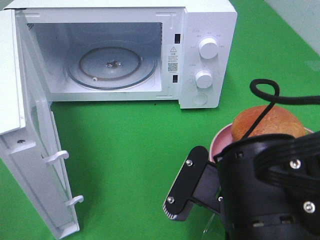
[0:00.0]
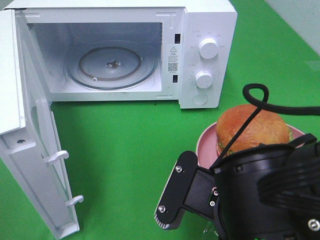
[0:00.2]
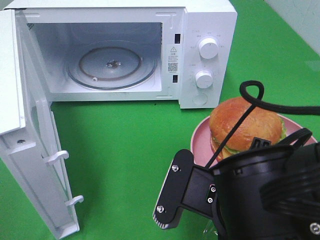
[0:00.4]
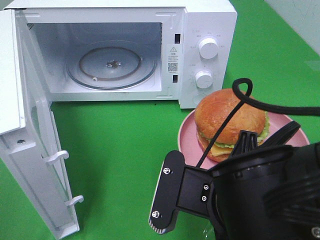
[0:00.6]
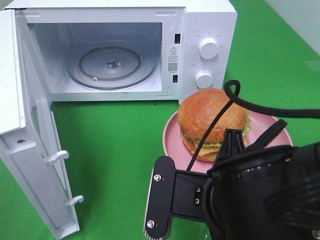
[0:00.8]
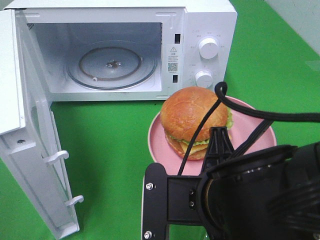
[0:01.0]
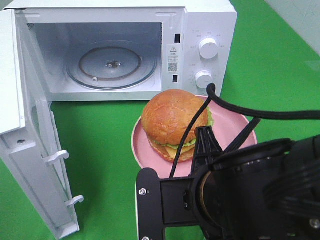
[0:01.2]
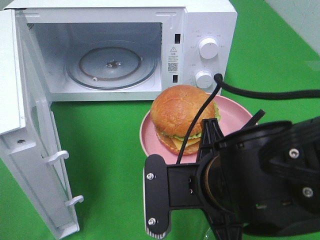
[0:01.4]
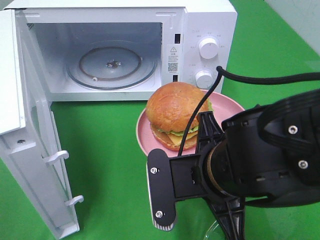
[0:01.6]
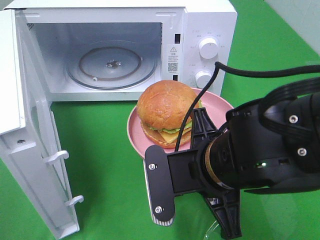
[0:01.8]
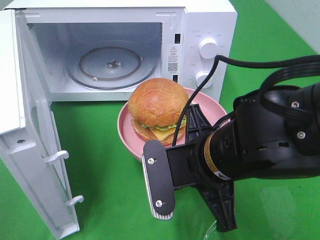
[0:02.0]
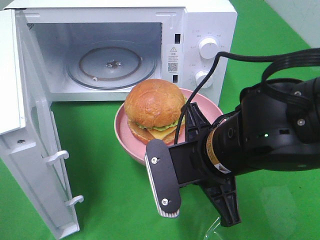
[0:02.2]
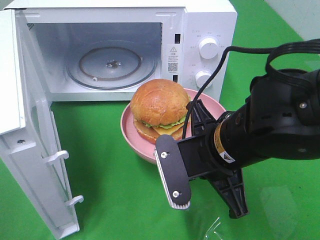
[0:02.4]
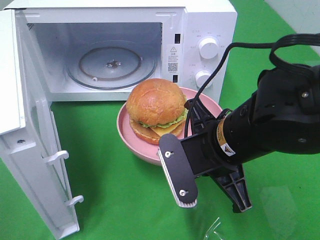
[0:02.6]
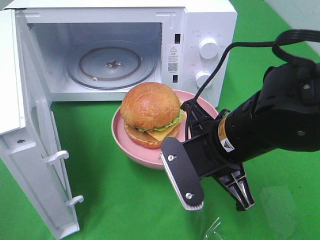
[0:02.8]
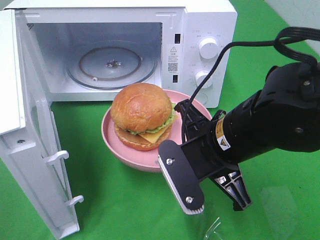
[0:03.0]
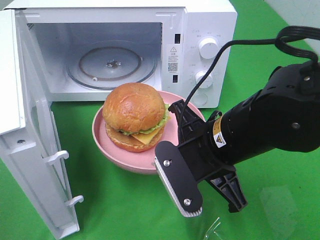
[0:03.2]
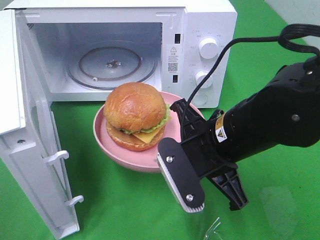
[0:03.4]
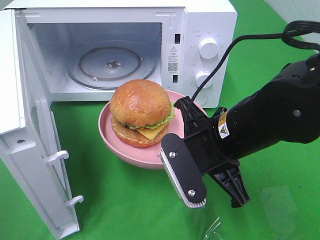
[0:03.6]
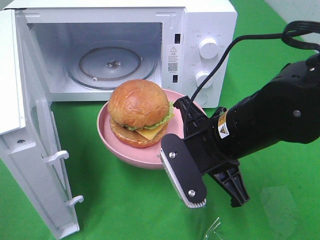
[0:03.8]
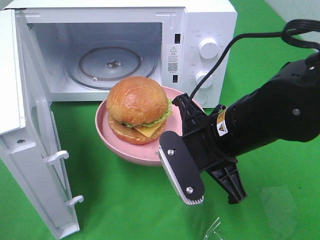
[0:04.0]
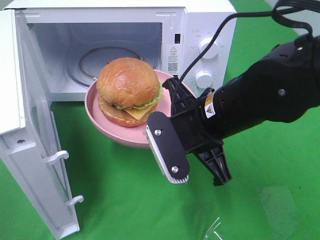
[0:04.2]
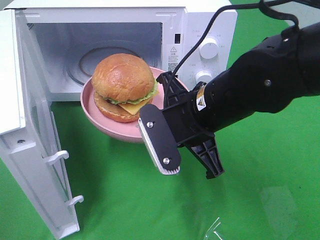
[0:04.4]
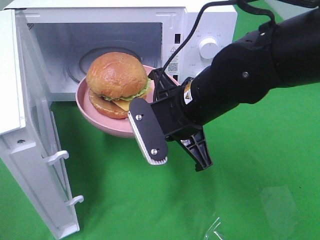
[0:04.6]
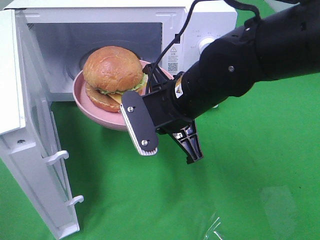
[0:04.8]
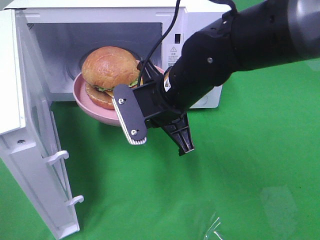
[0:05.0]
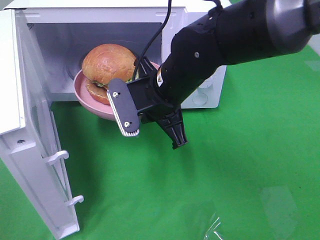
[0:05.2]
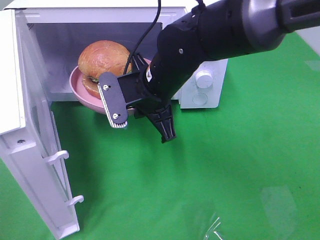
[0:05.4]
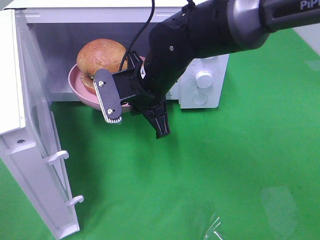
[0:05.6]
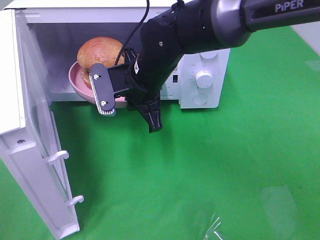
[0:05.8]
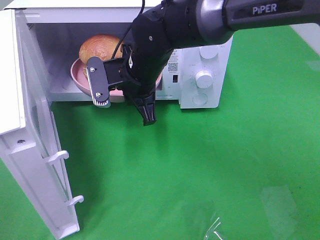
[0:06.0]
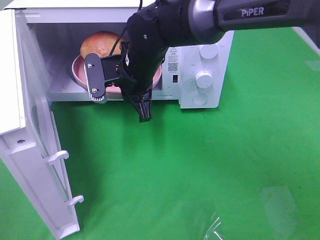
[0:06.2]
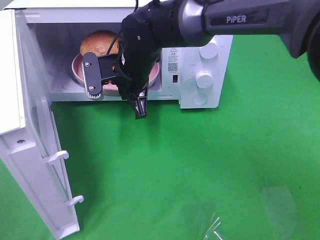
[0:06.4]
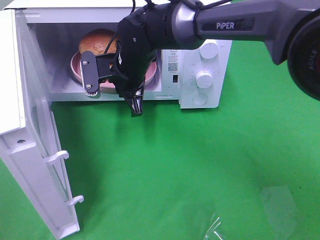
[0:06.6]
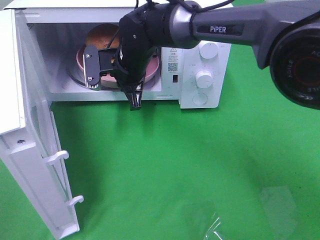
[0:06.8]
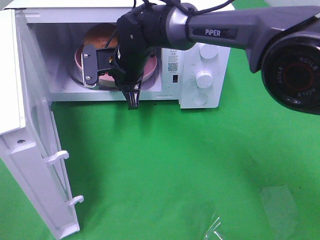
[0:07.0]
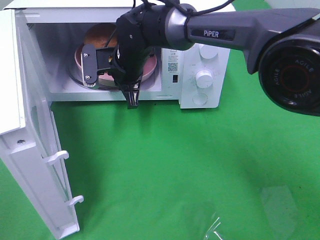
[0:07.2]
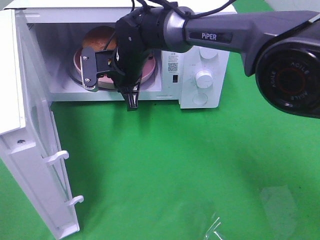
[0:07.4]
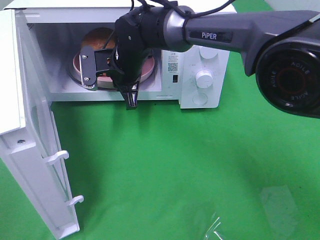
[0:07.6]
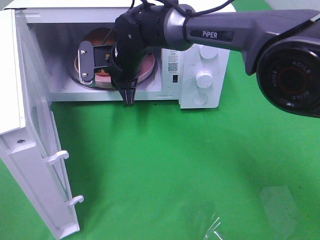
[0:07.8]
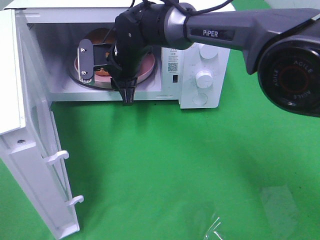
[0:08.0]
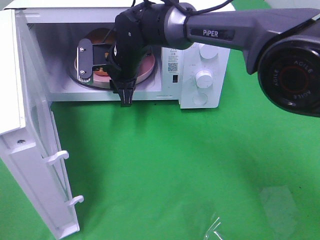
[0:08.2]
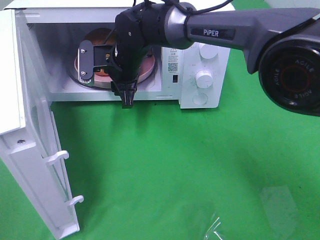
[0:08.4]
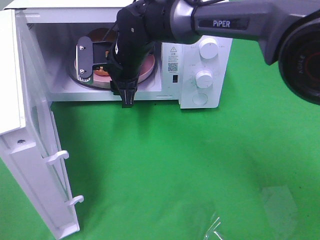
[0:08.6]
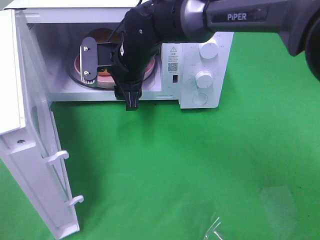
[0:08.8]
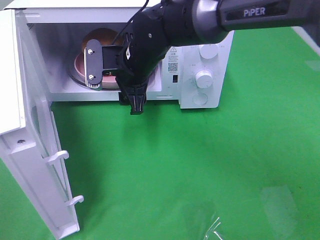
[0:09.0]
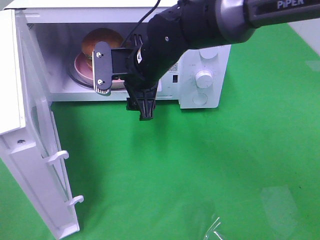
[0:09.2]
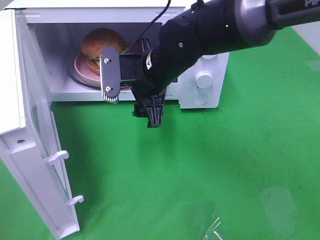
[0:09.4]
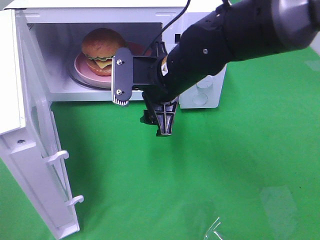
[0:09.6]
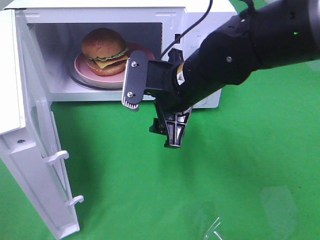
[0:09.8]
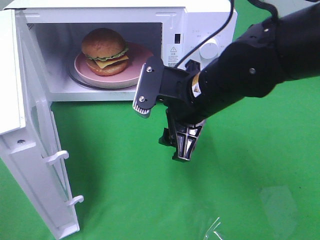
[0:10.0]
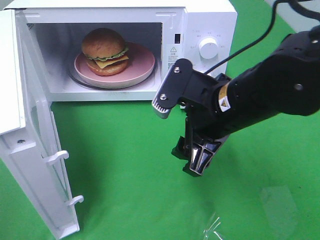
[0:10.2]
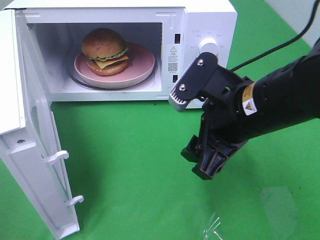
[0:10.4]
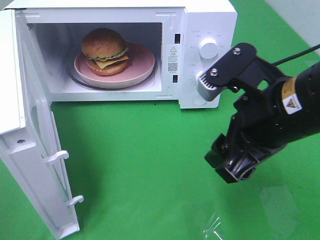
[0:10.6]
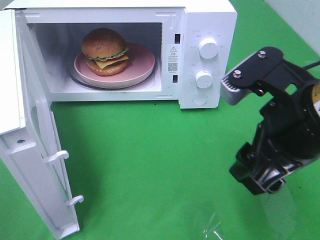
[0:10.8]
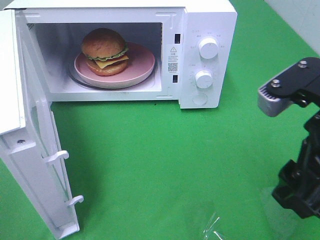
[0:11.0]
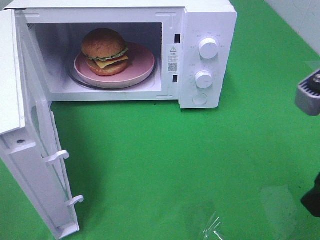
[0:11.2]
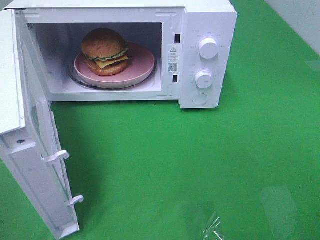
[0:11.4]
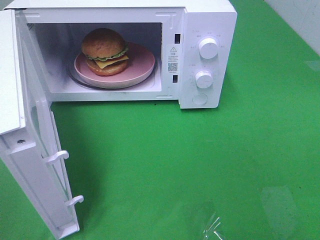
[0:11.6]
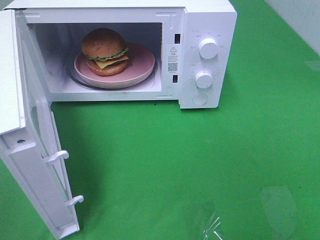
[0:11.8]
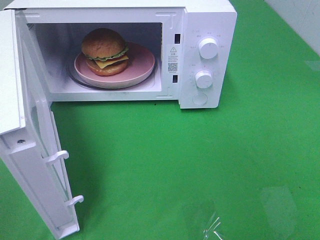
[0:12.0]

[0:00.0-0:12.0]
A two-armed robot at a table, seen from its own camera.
Task of the whole recording: Heat the burger.
Step, 0:00.0 to 0:08.8: Right hand: place the plate in the microwave.
0:04.4 to 0:06.0: The right gripper moves forward and to the left, approximately 15 cm.
0:06.0 to 0:07.6: The right gripper heads forward, covering about 5 cm.
0:07.6 to 0:09.0: The right gripper changes place by roughly 5 cm, and opens its fingers.
0:09.0 to 0:10.4: The right gripper travels backward and to the right by about 20 cm.
0:10.4 to 0:12.0: The right gripper travels to the right, backward and upward by approximately 25 cm.

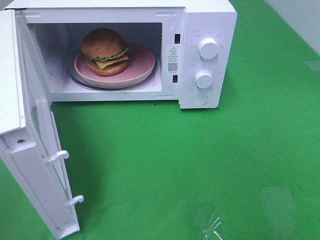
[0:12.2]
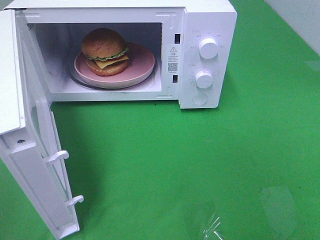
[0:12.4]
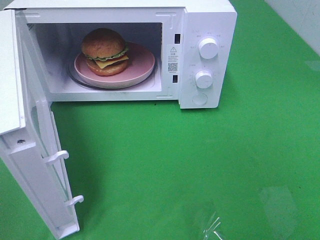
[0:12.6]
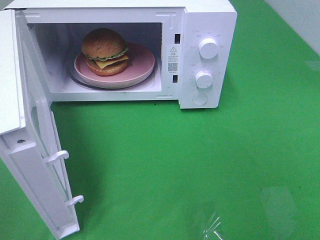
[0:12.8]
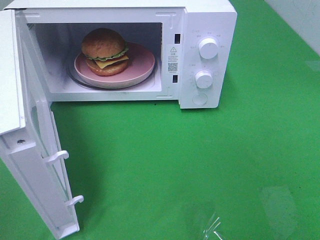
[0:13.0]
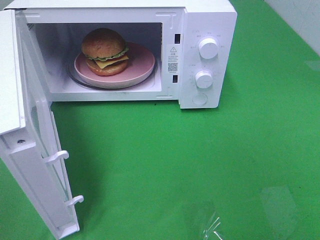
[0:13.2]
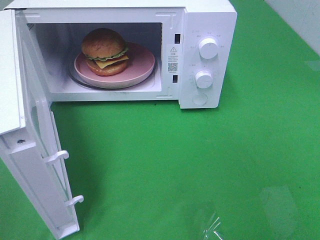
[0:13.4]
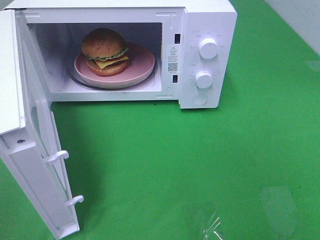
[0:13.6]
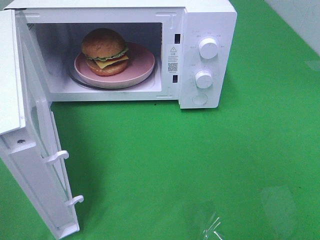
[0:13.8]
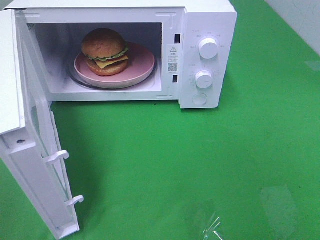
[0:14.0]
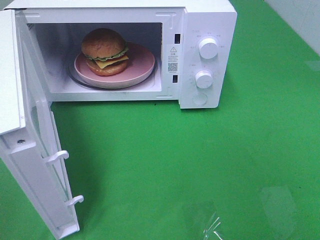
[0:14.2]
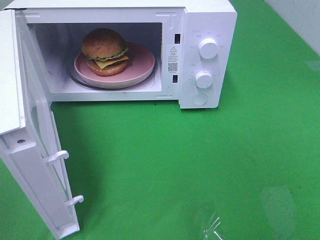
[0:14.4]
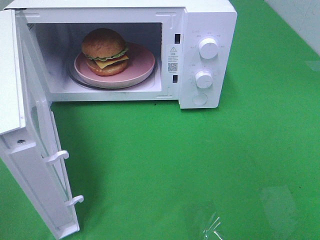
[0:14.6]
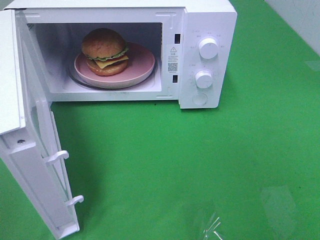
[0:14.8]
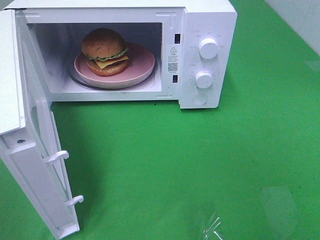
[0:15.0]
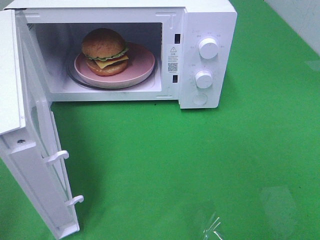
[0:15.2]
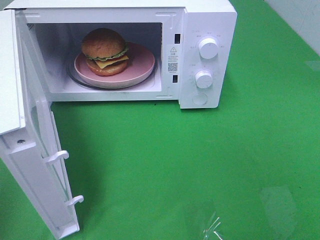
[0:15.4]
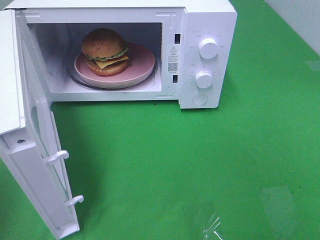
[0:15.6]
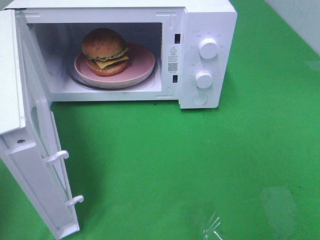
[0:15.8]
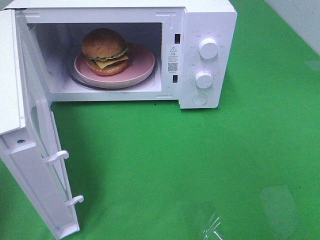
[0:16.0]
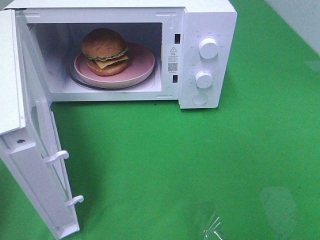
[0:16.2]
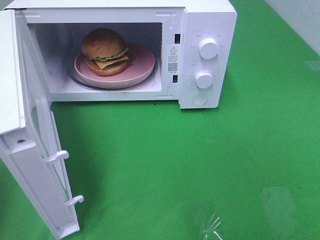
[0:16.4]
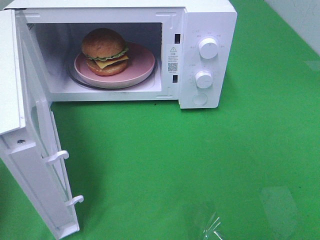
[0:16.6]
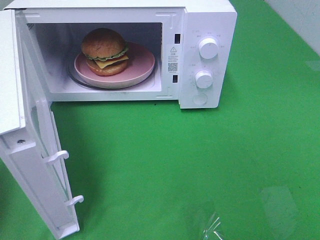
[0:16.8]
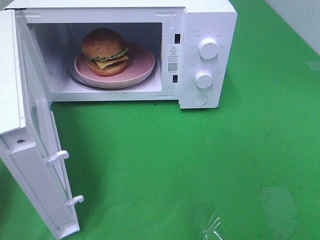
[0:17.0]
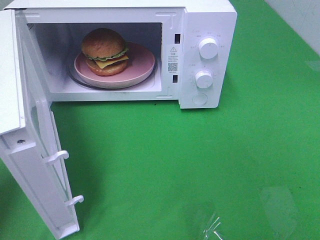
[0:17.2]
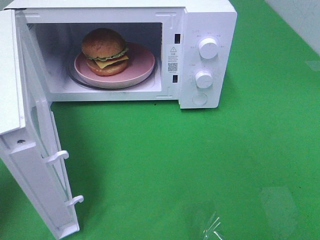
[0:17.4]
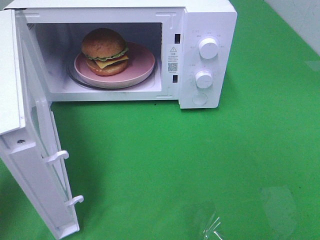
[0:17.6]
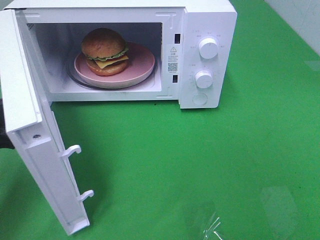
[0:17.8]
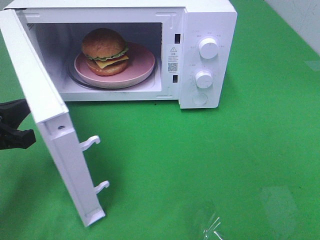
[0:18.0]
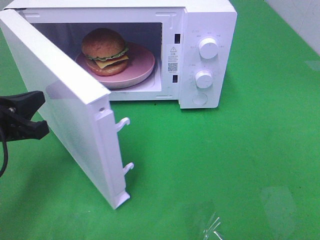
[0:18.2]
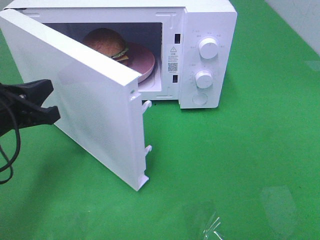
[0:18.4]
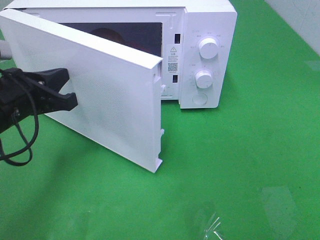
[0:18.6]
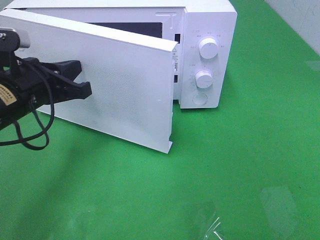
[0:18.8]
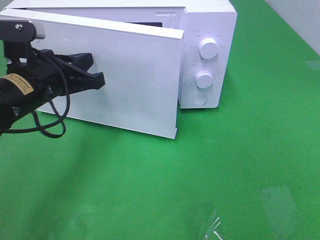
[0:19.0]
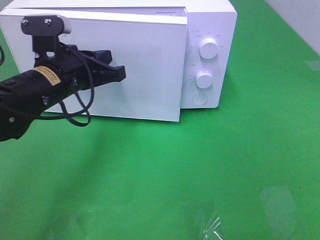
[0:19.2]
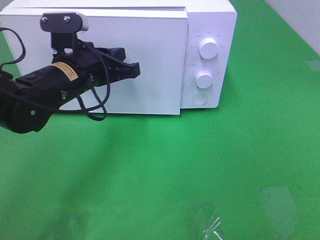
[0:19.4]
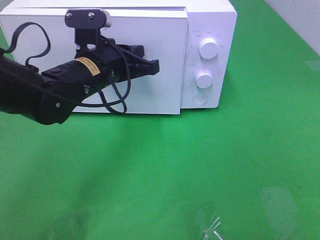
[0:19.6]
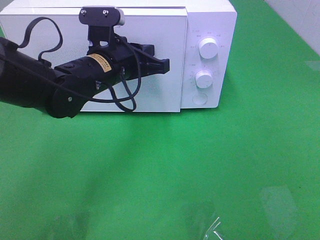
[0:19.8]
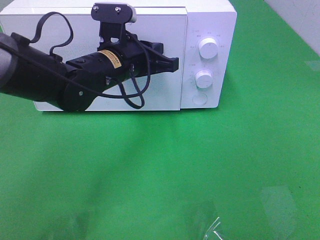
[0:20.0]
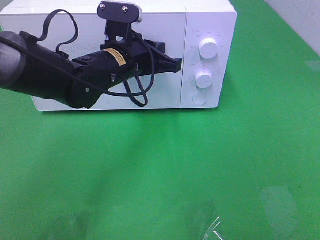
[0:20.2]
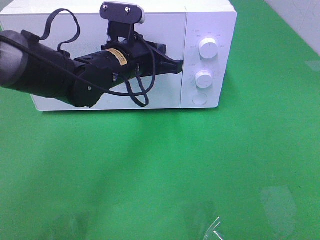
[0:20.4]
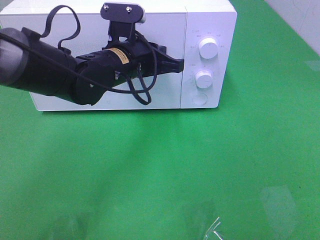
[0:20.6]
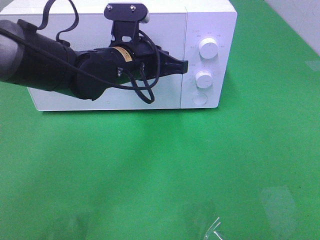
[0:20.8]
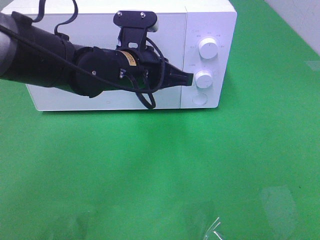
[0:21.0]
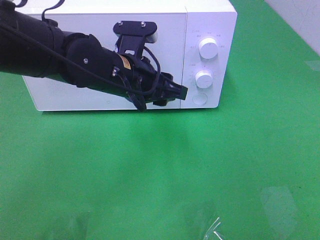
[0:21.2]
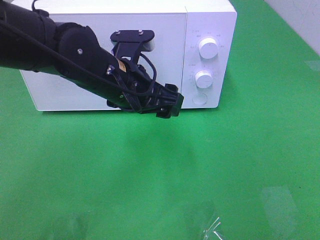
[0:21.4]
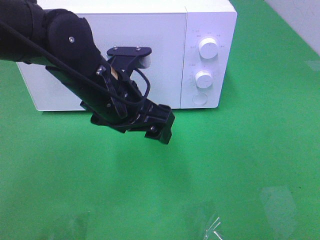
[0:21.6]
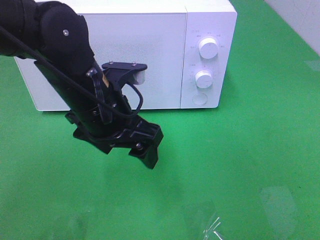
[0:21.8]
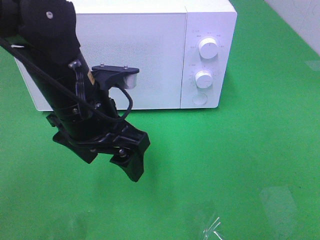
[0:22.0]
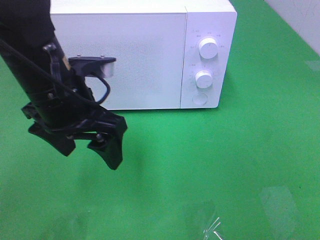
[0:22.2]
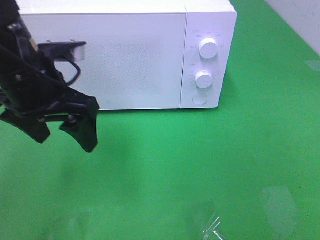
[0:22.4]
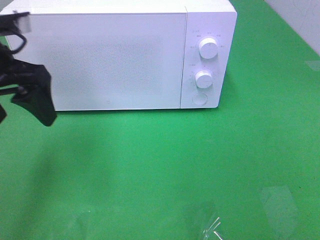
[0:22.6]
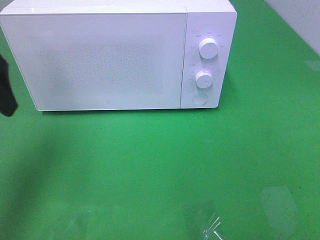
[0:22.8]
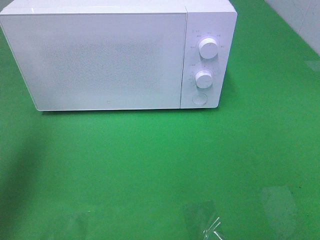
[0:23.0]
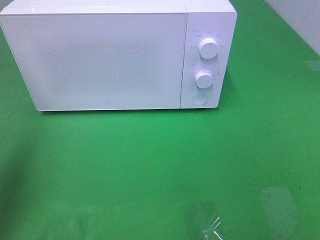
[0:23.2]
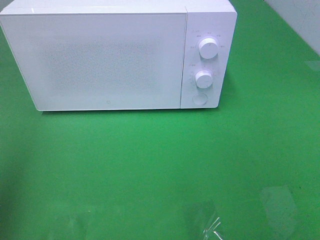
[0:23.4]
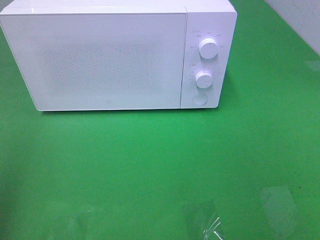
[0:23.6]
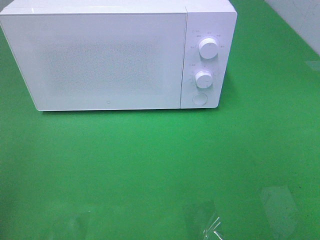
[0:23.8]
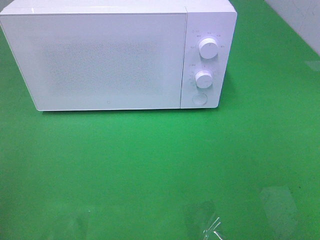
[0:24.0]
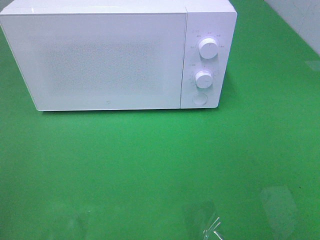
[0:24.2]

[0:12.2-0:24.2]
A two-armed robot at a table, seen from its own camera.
Task of the whole recording: Heat the burger.
Step, 0:12.2 to 0:21.2: Left hand: close the microwave door.
0:16.6 to 0:18.2: The left gripper heads forward, to the right and downward, covering approximately 15 cm.
0:18.2 to 0:19.8: The left gripper shifts roughly 20 cm to the right and forward.
0:19.8 to 0:21.2: The left gripper opens up.
0:21.2 to 0:22.6: The left gripper heads to the left and upward, covering roughly 20 cm.
0:22.6 to 0:24.2: The left gripper is displaced backward and to the left by roughly 25 cm.
